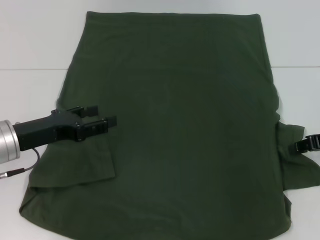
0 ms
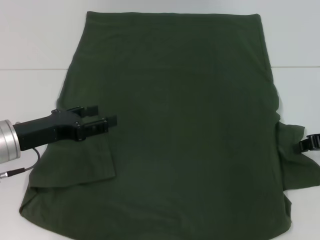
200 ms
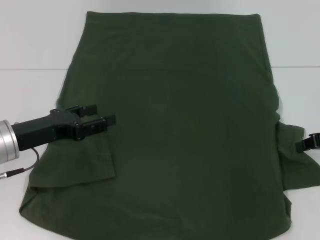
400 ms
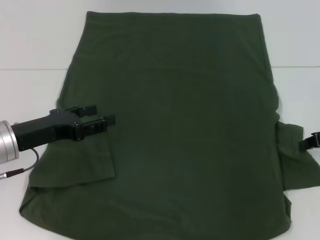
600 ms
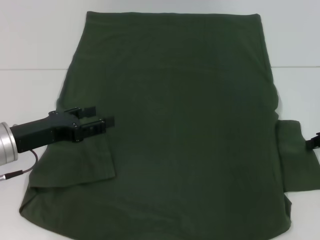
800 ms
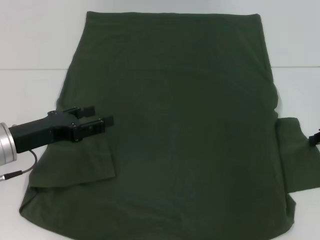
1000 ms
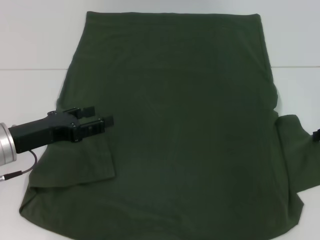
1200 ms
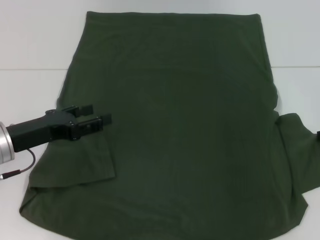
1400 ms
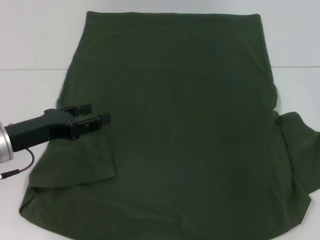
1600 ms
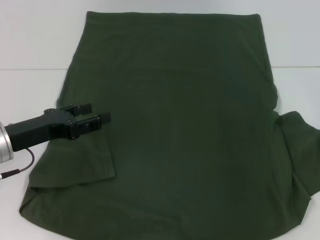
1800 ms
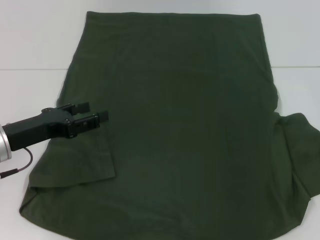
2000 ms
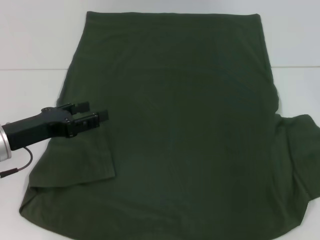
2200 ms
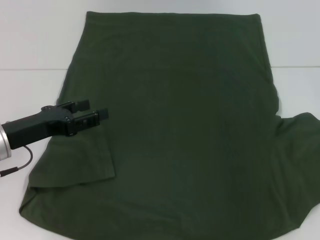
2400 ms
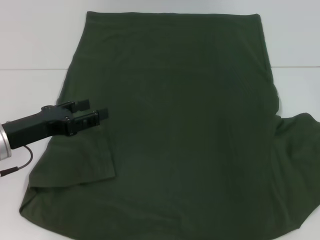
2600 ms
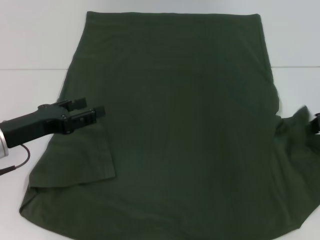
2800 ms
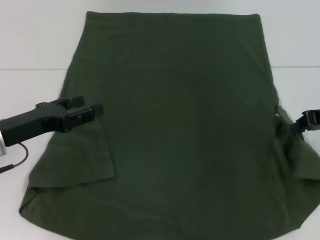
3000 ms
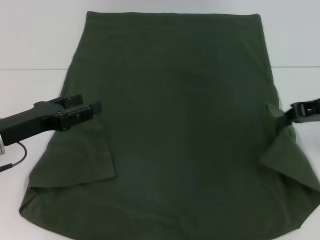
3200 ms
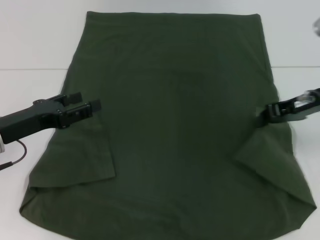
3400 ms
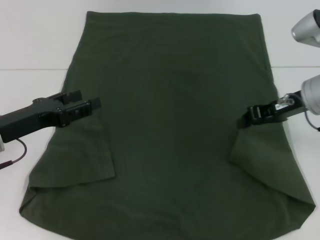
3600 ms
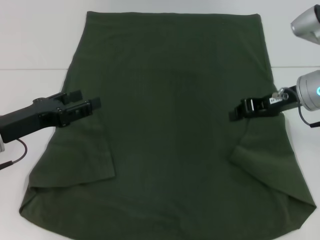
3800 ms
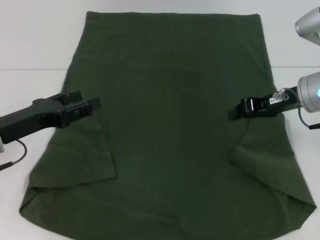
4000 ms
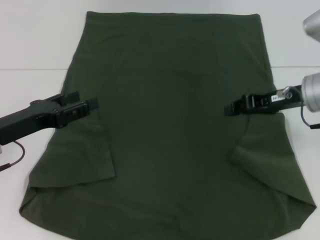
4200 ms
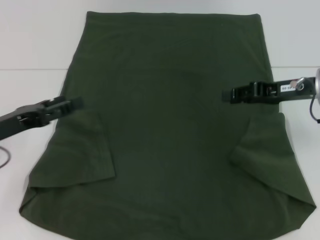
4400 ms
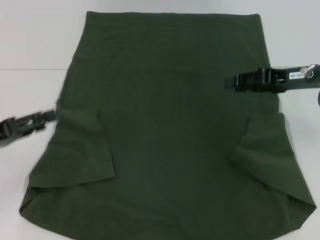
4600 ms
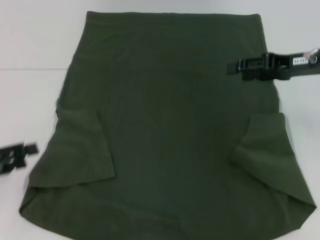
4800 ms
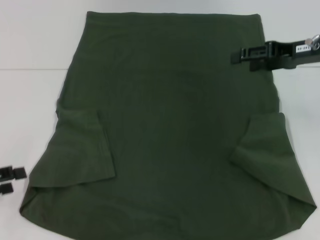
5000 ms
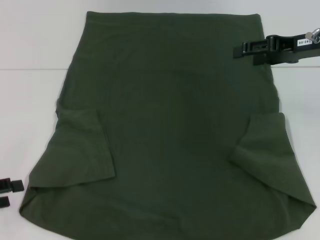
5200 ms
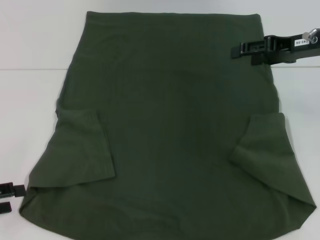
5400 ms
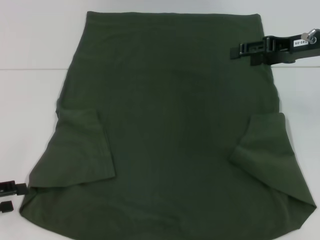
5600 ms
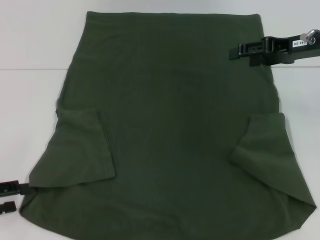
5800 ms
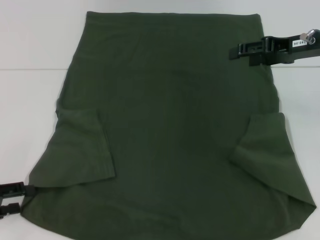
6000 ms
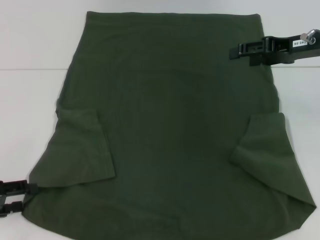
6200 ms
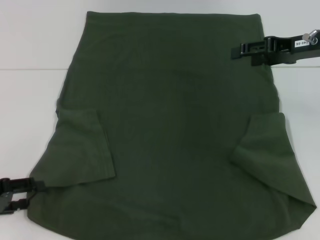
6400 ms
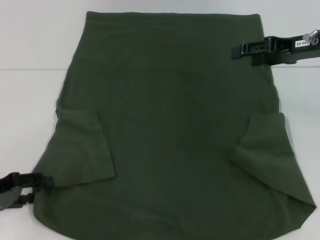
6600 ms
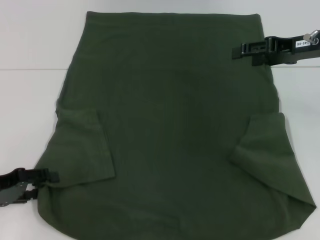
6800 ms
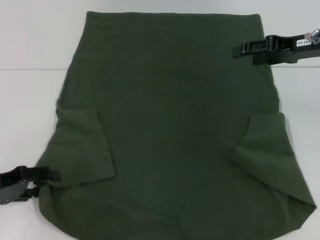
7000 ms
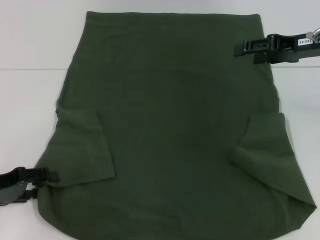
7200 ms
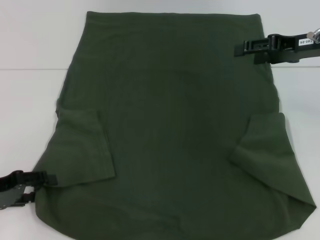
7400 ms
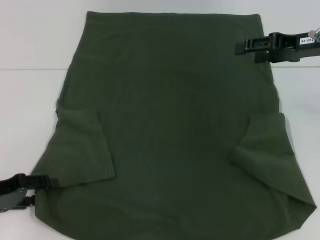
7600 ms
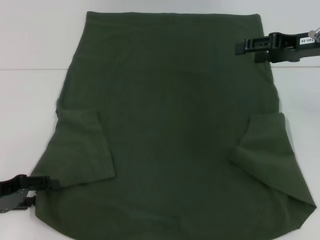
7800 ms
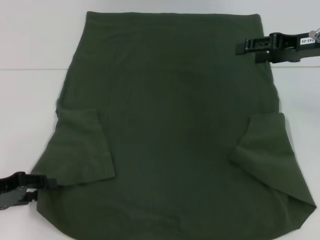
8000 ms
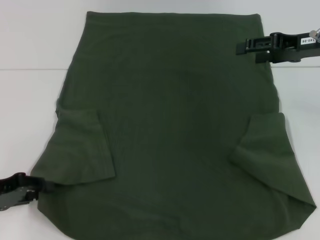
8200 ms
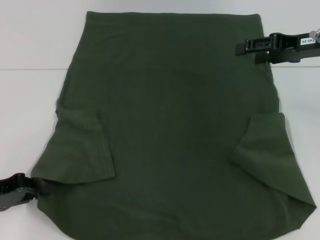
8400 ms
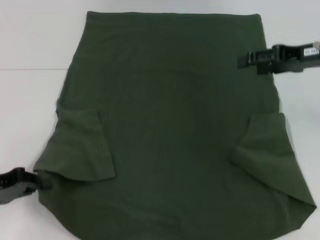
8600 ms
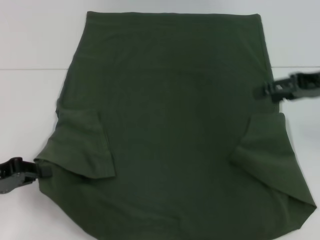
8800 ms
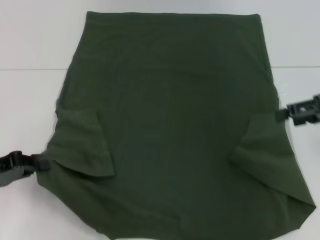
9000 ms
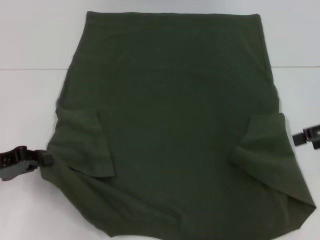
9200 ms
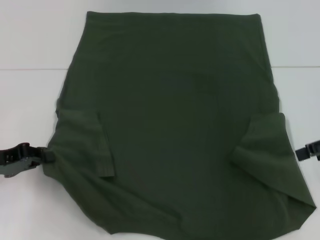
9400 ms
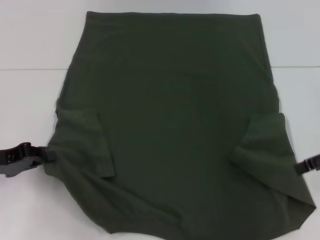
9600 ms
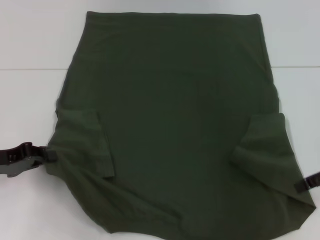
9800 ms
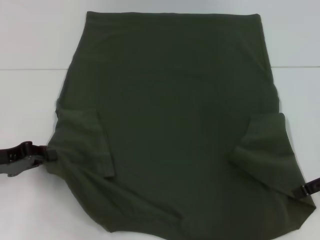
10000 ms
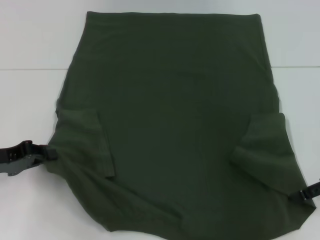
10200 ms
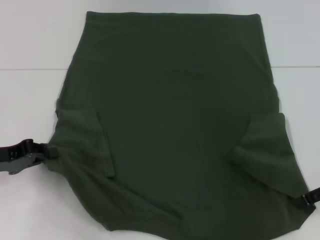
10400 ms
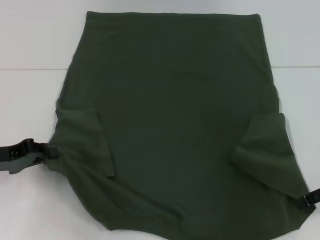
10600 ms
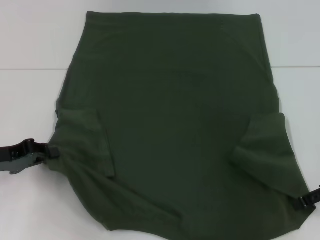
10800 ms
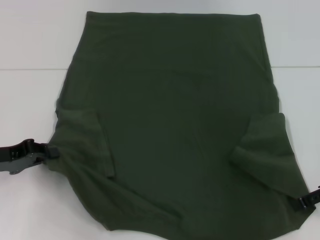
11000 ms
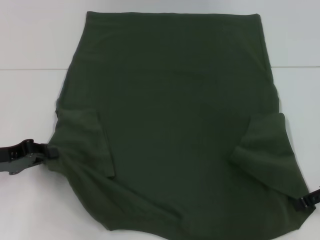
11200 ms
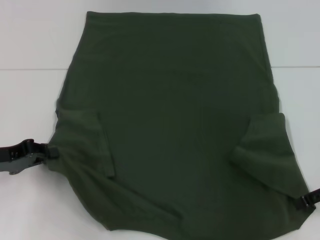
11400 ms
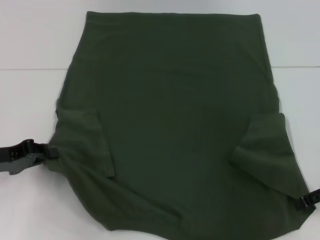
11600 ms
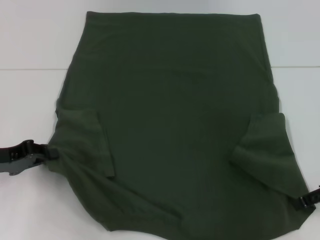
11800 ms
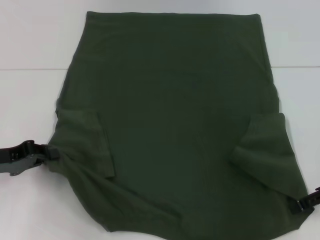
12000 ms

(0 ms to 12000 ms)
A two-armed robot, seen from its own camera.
Step, 0 ms - 4000 ms: Fold the bottom right sleeve with your right hand.
Step, 4200 ms - 8000 ms: Grab the bottom left corner with your left hand.
0 ms - 1600 ms: The right gripper closes.
1600 ms - 3000 ms: The right gripper shifts by approximately 5 cm.
3000 ms - 4400 ms: The right gripper shifts about 5 cm to the left.
4400 ms - 6000 ms: The right gripper moves upward, some 5 cm, and opens its fingers. The left gripper goes roughly 10 cm to the left and backward.
6000 ms - 7600 ms: The grippers make only small movements.
7600 ms - 9000 ms: The left gripper closes its fingers. The right gripper moves backward and to the right, about 10 cm.
9000 ms - 10400 ms: The right gripper goes approximately 5 cm downward.
10400 ms - 12000 ms: Neither gripper changes place.

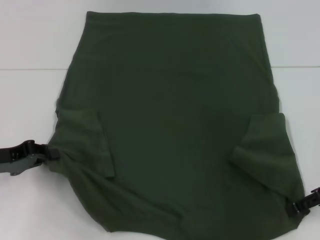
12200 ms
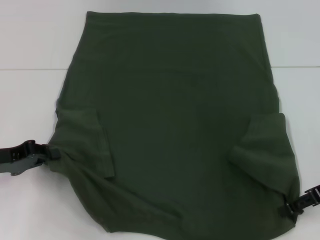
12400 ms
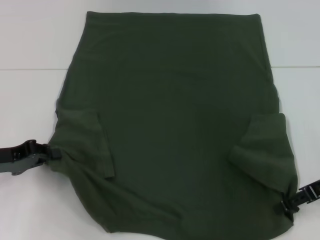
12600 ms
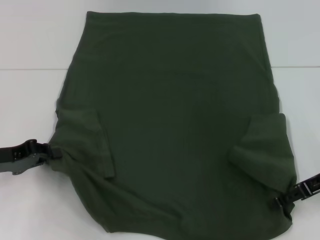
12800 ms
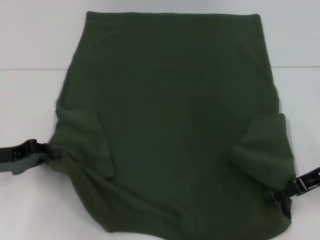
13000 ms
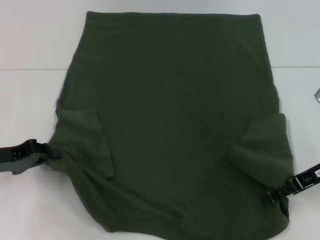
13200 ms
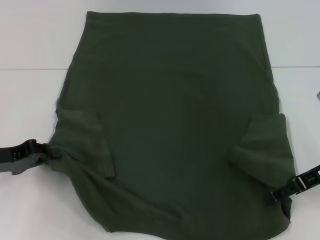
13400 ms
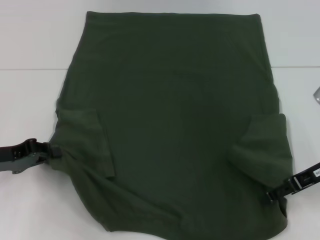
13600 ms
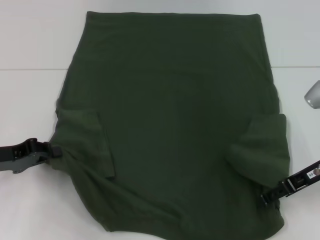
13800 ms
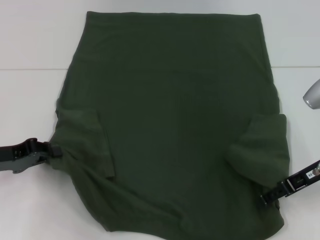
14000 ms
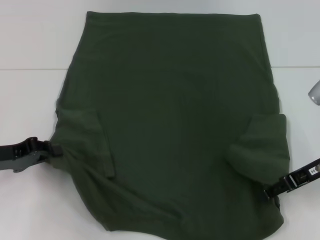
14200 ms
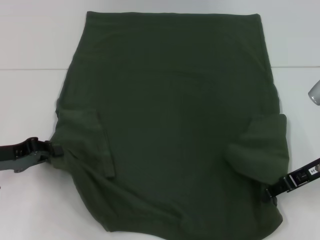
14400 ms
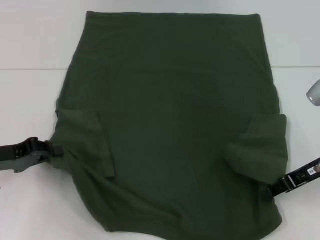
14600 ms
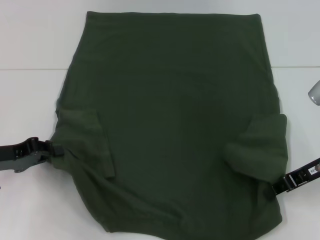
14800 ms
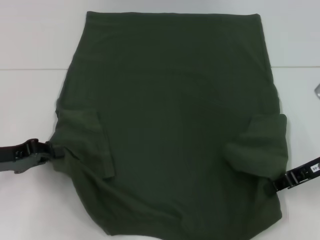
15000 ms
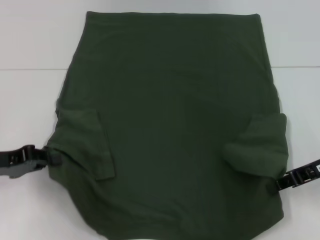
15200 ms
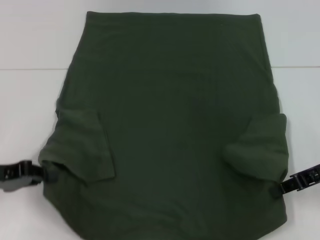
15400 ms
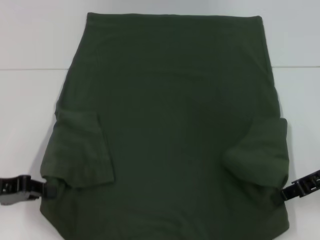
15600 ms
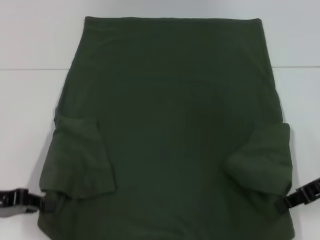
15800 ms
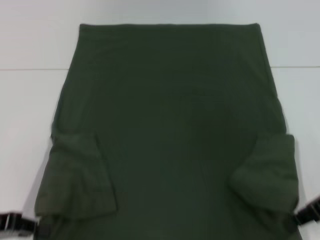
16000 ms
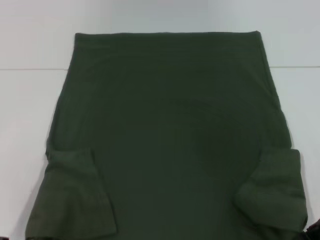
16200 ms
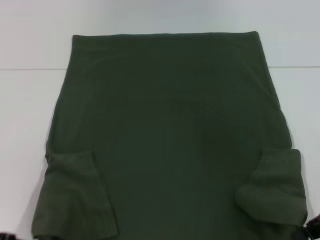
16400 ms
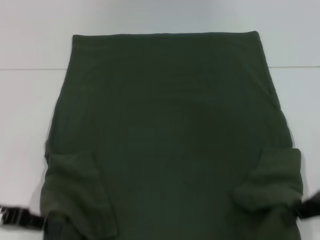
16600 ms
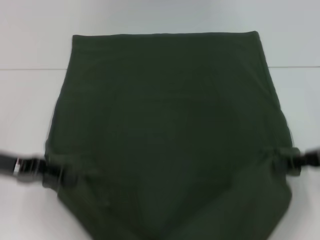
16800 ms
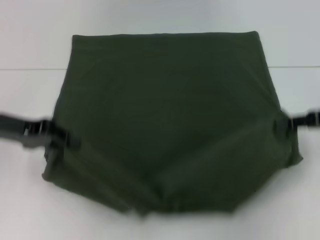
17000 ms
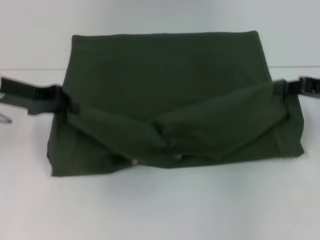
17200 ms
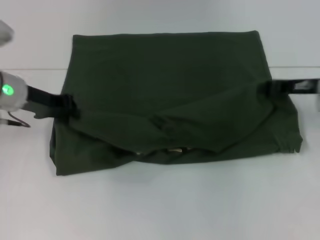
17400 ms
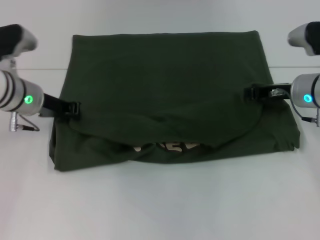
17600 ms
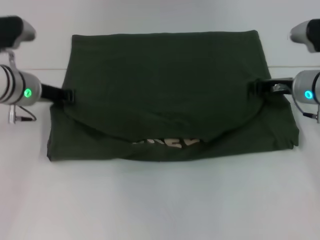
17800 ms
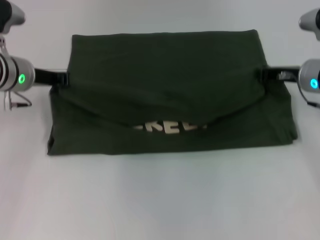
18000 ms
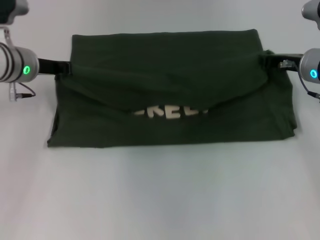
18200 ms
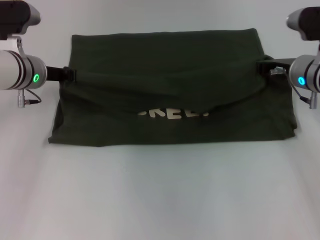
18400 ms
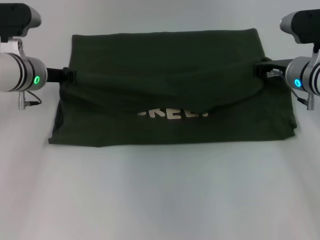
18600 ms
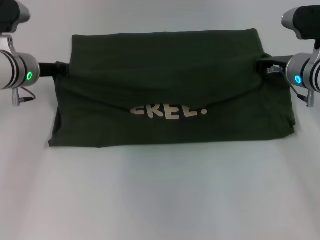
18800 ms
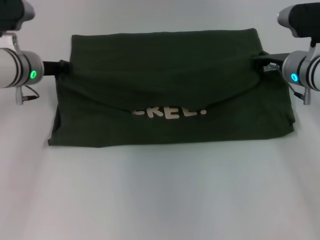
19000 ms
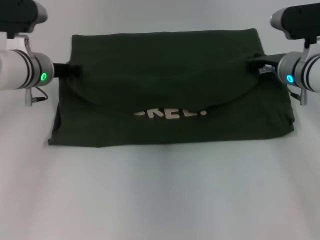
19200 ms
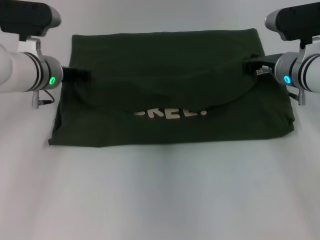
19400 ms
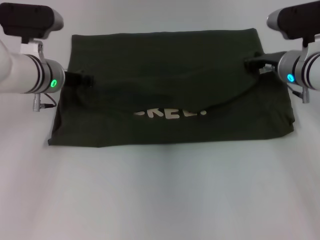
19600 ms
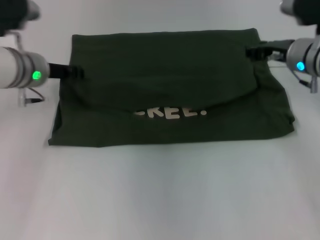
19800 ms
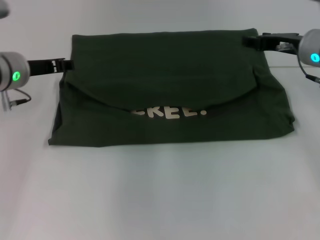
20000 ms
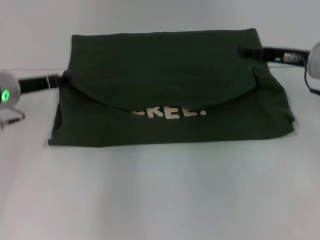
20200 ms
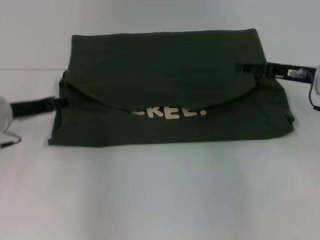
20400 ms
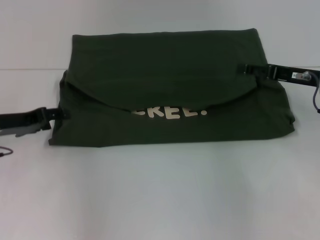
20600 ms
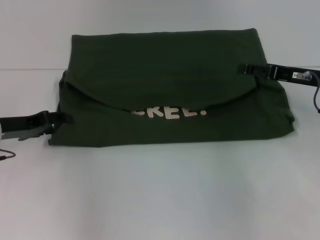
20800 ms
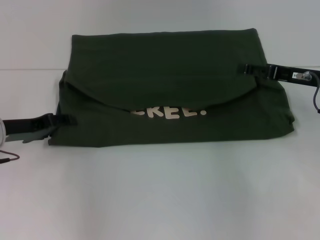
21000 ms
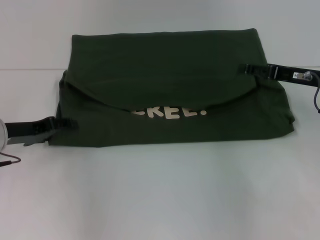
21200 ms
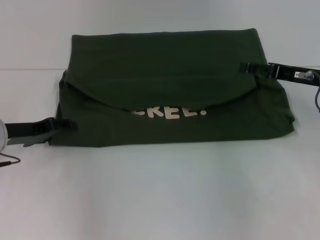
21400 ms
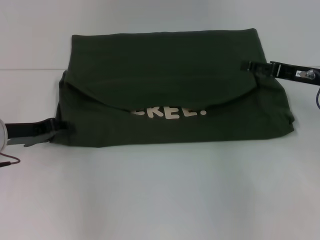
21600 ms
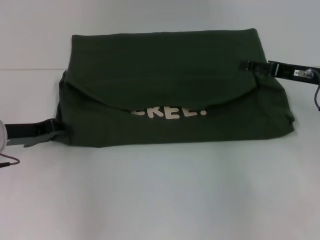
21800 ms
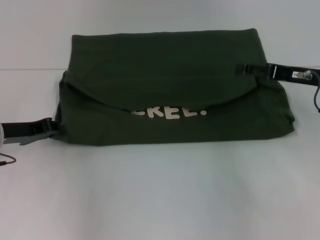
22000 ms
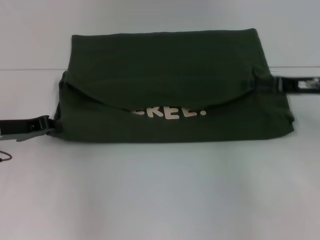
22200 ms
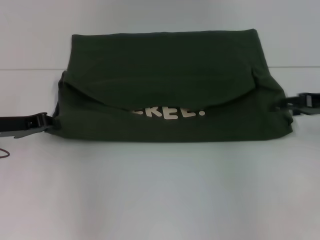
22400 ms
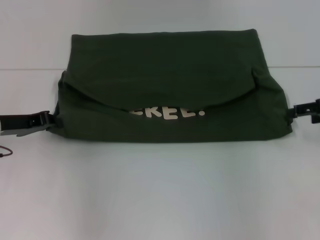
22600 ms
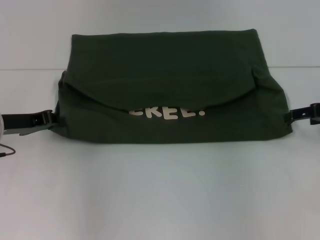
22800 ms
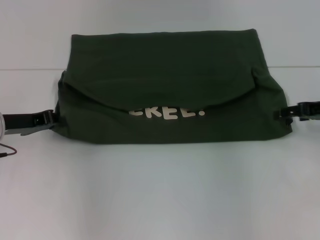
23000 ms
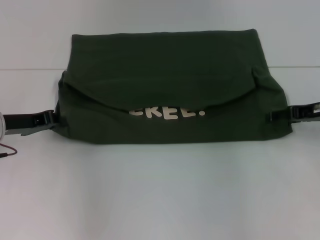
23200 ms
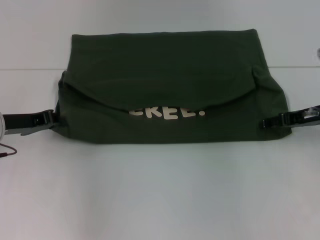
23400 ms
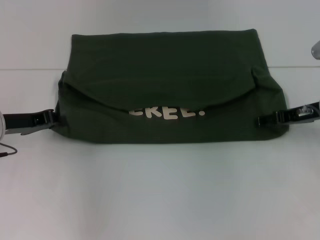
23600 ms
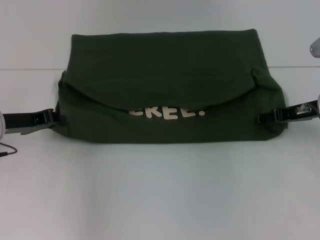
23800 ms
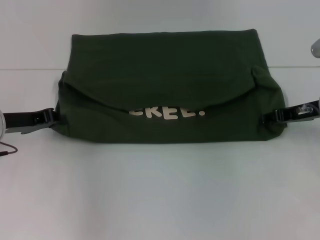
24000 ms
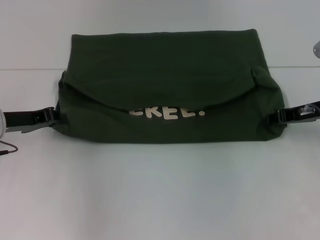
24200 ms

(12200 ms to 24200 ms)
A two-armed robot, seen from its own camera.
Step, 13200 ms - 19600 ms: Fold the clothes with your left hand.
Step, 13200 ms - 19600 ms: Fold the clothes with your right hand.
12200 ms - 13800 ms: The right gripper moves roughly 5 cm.
13800 ms - 15200 ms: The right gripper closes its fingers.
16600 ms - 18200 ms: The left gripper heads forward and to the right, covering roughly 20 cm. The right gripper shifts some 15 cm forward and to the left.
18200 ms - 19800 ms: The grippers stay close to where they were, moving slightly.
19800 ms - 21200 ms: The left gripper heads backward, to the left and downward, covering approximately 15 cm, and opens up. Meanwhile the right gripper goes approximately 5 cm backward, and opens.
21200 ms - 22600 ms: The right gripper shifts about 5 cm to the right. Meanwhile the left gripper closes its fingers.
22600 ms - 24200 ms: The right gripper goes roughly 5 cm to the left, and closes up.
